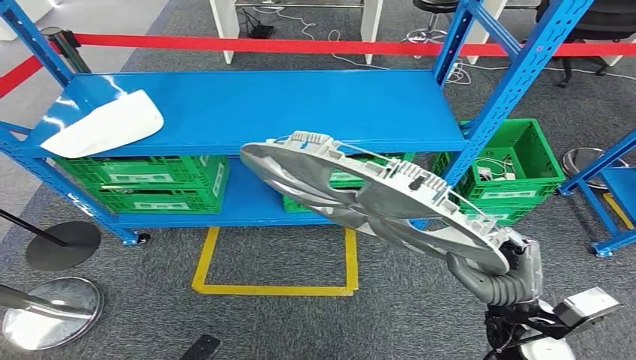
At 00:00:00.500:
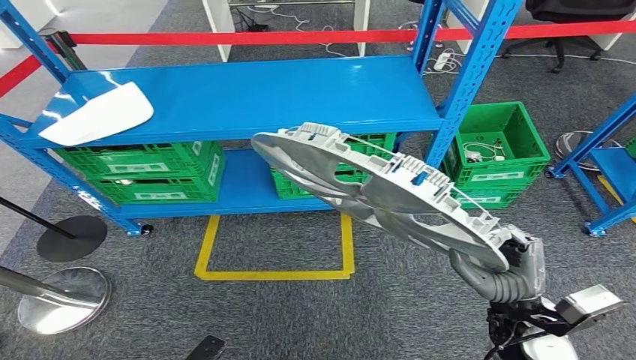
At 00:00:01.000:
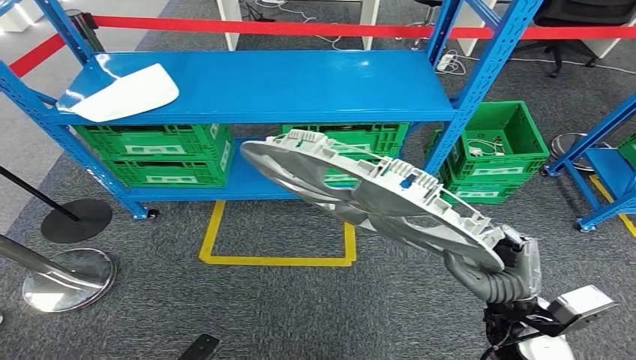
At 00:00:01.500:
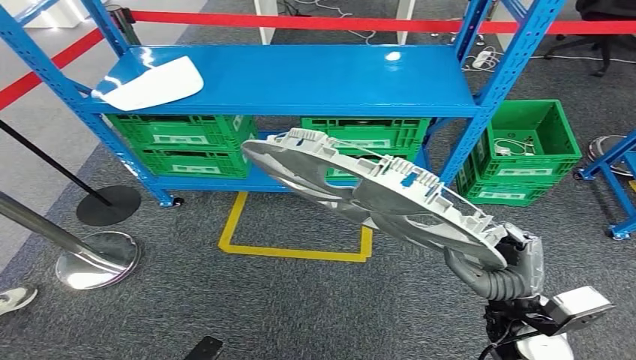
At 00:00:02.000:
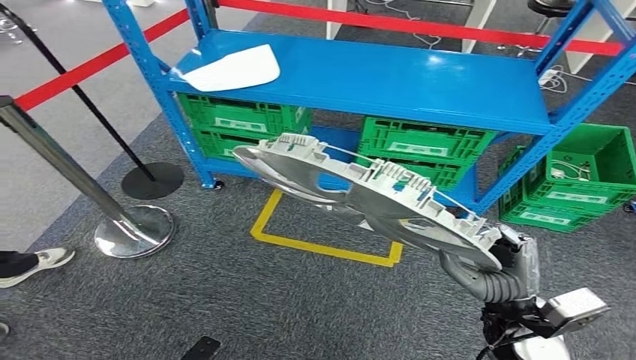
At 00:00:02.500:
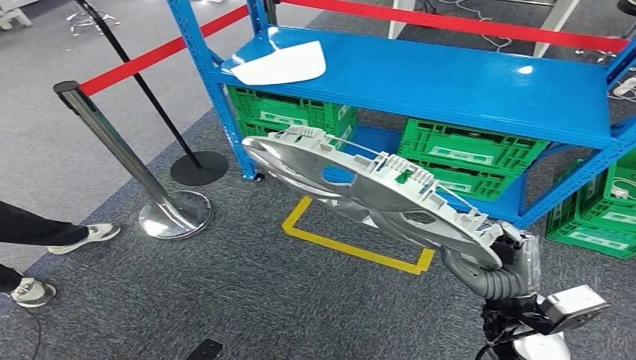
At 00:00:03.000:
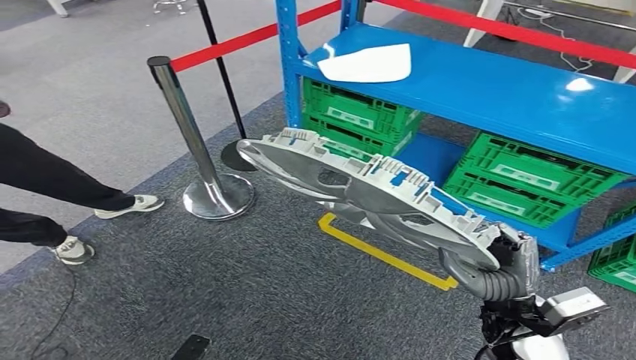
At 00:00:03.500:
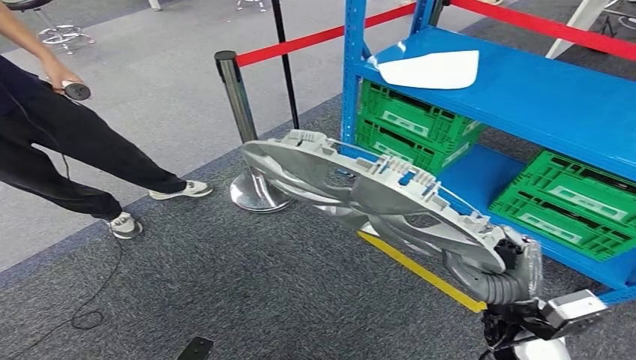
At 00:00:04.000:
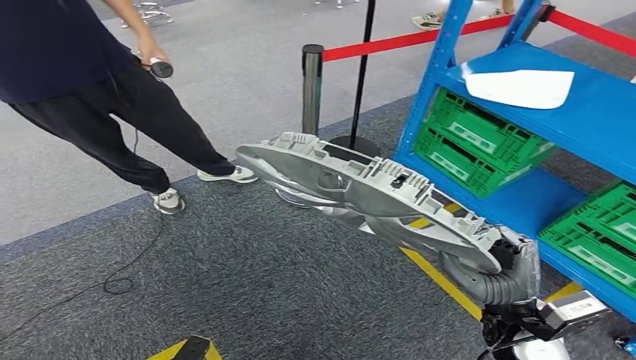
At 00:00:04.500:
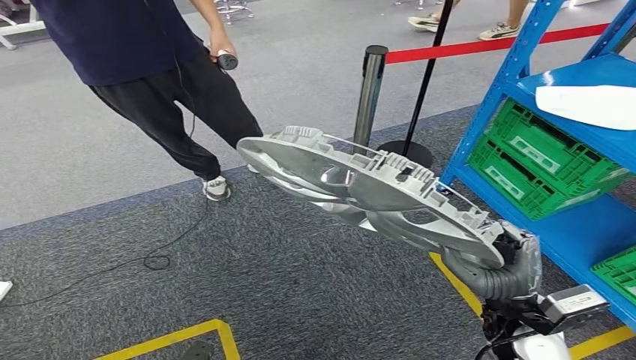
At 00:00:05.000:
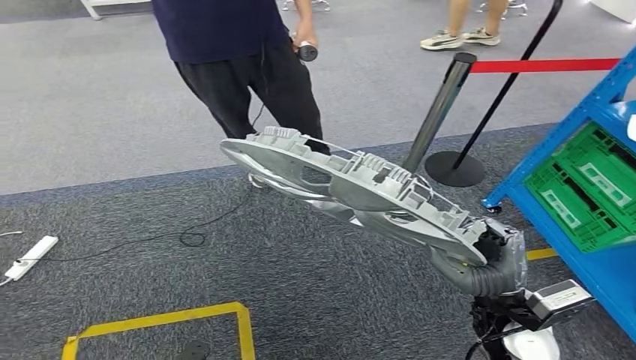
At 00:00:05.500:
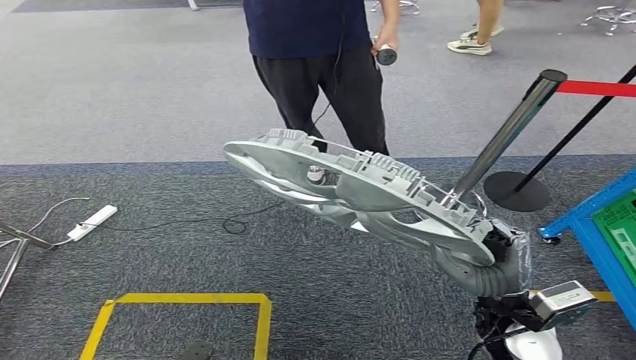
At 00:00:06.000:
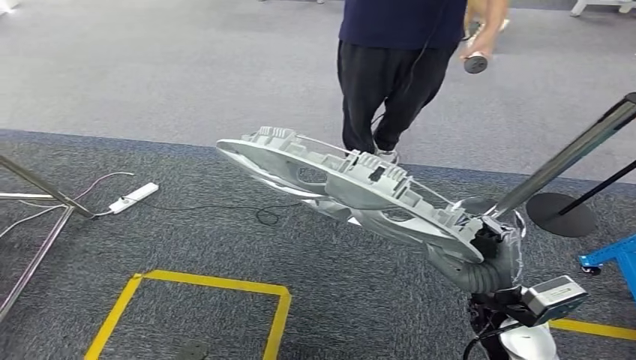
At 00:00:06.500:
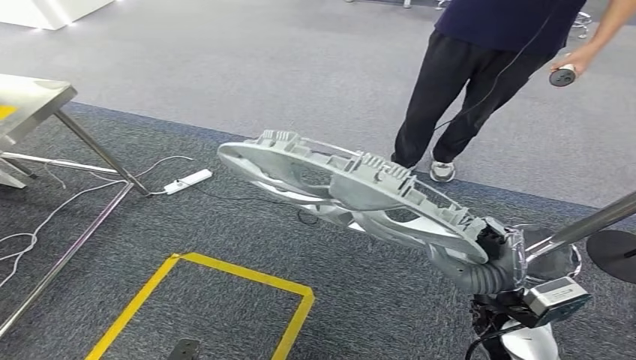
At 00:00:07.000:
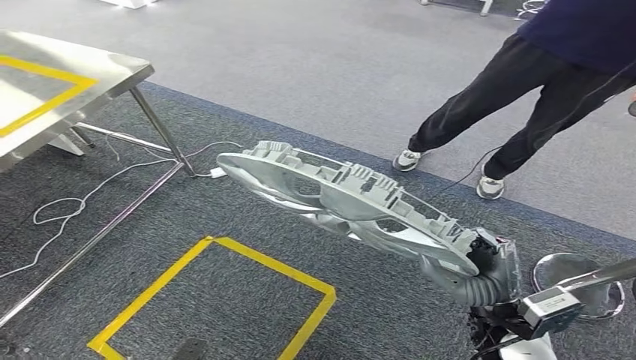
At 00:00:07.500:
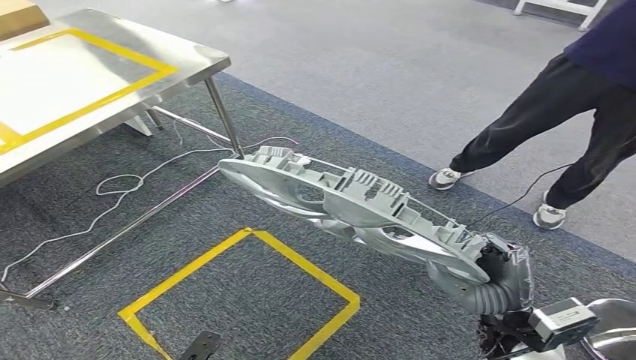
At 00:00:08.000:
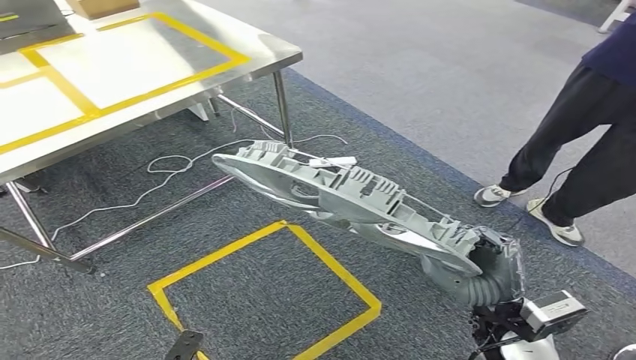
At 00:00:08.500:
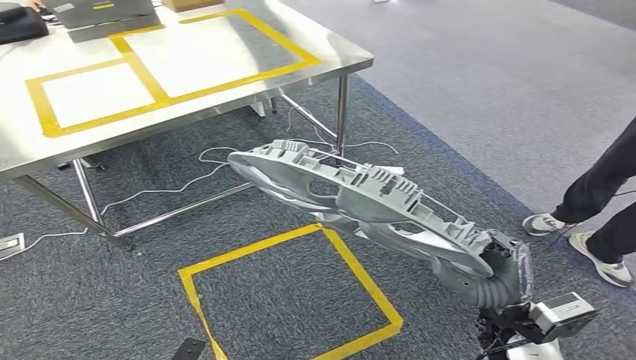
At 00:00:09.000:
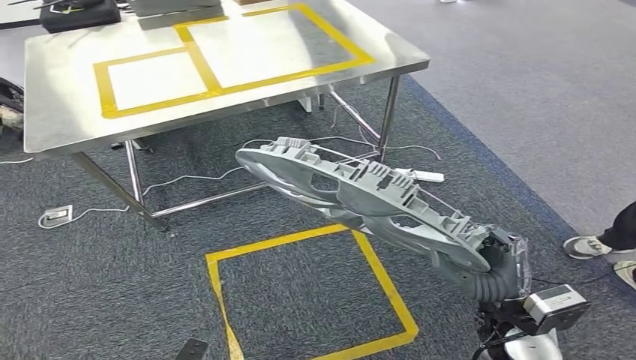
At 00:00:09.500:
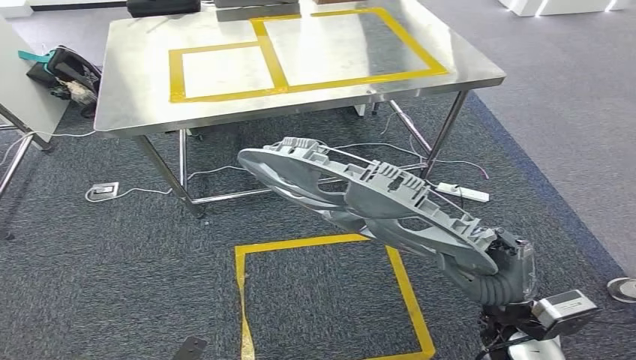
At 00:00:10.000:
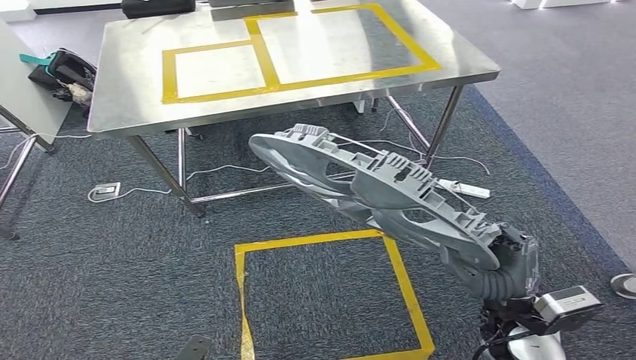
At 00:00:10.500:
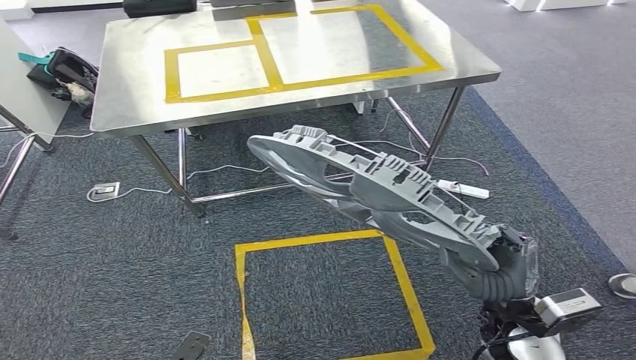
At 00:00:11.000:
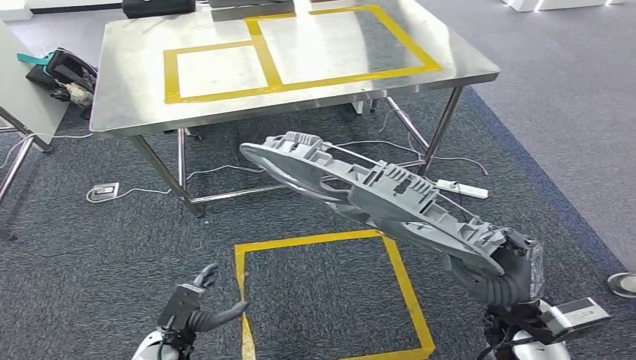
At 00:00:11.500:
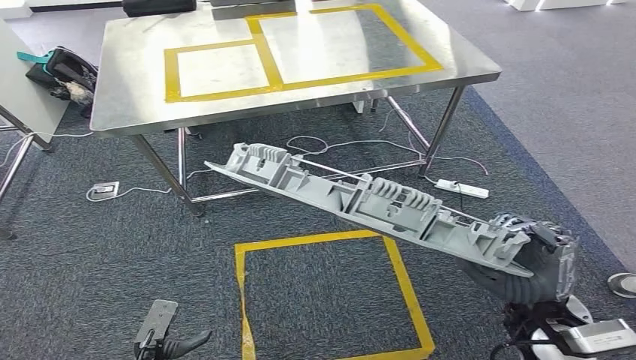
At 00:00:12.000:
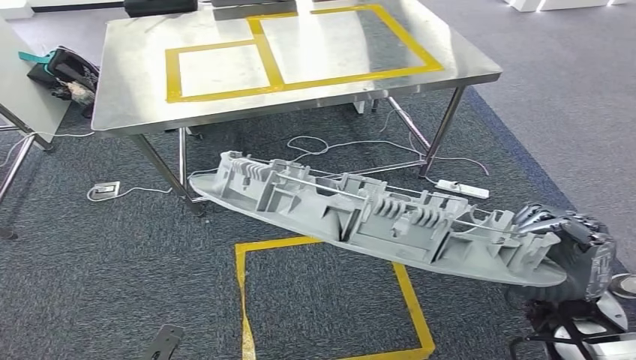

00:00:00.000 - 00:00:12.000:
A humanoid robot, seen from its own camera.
00:00:10.000 - 00:00:12.000: The right hand goes about 10 cm upward; the left hand reaches approximately 10 cm forward, then returns.

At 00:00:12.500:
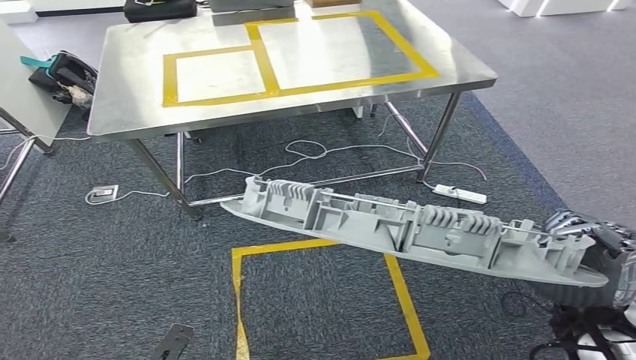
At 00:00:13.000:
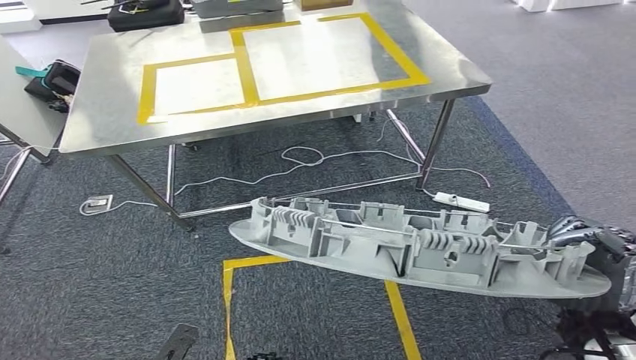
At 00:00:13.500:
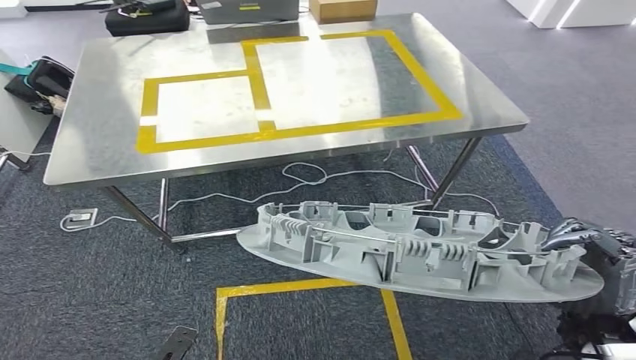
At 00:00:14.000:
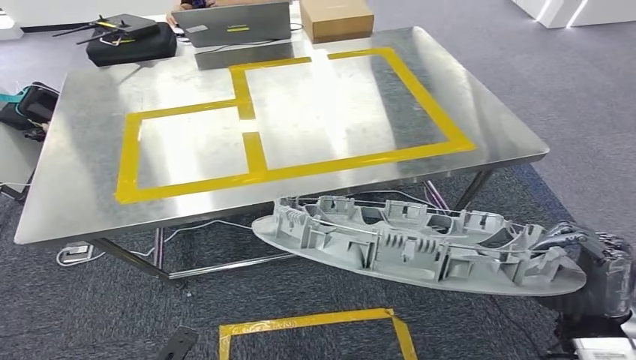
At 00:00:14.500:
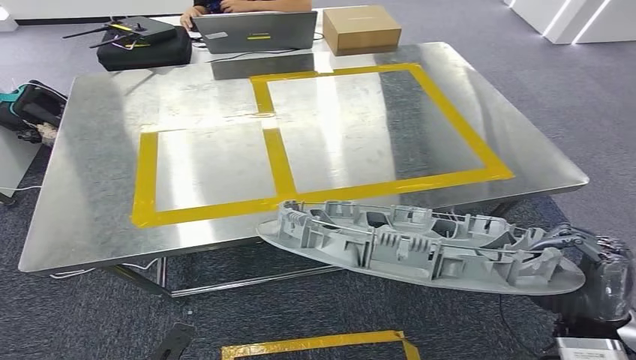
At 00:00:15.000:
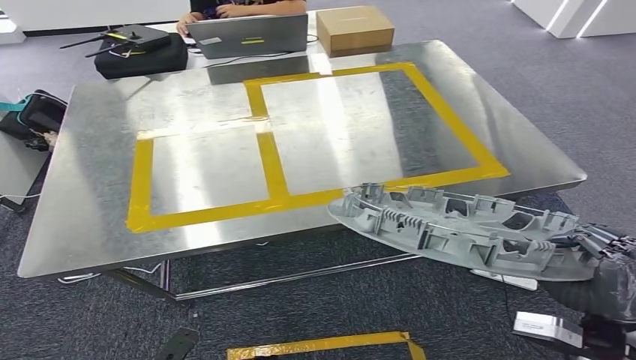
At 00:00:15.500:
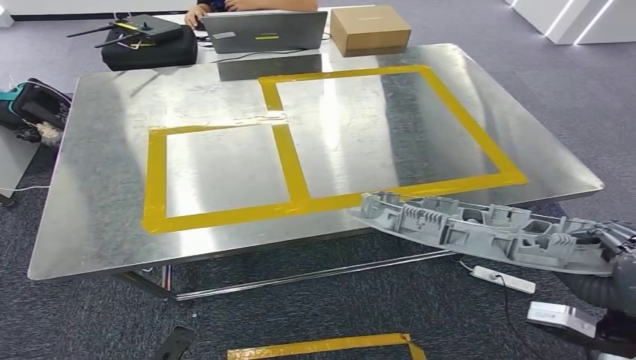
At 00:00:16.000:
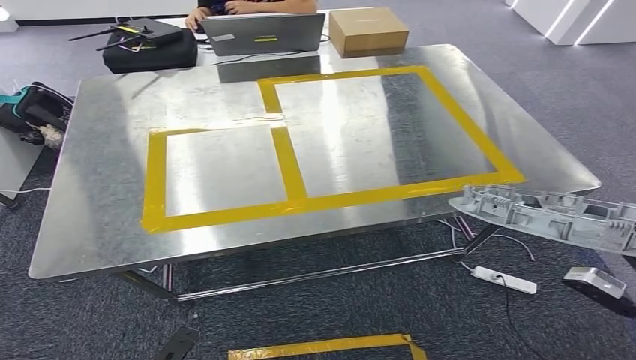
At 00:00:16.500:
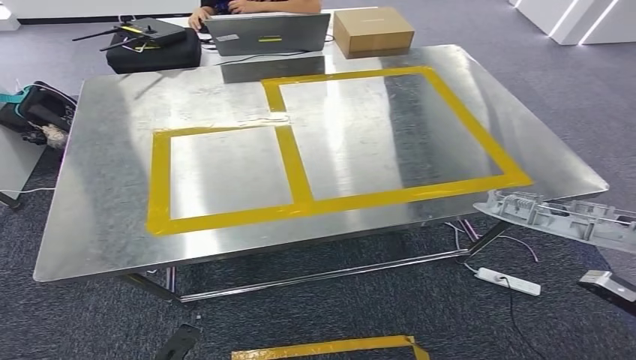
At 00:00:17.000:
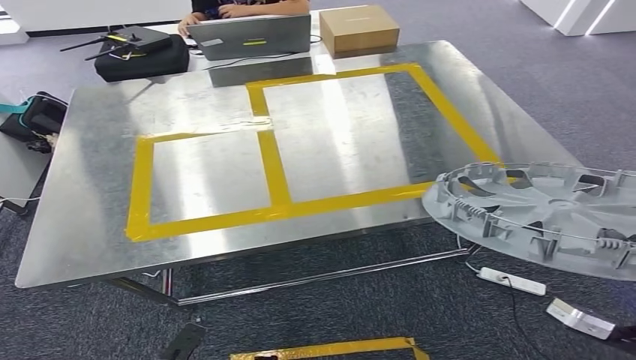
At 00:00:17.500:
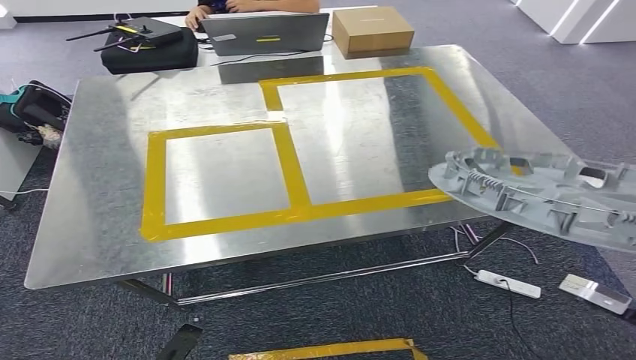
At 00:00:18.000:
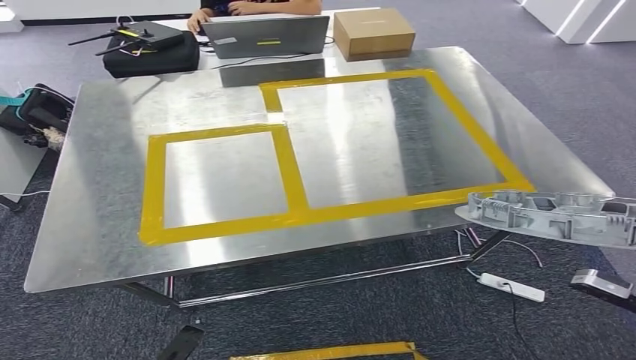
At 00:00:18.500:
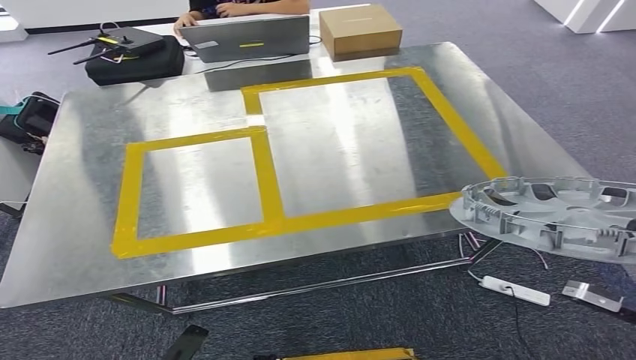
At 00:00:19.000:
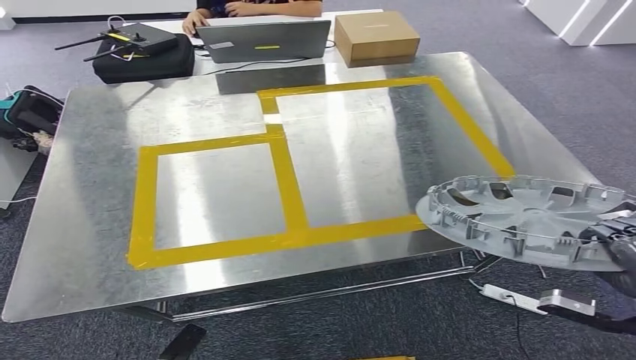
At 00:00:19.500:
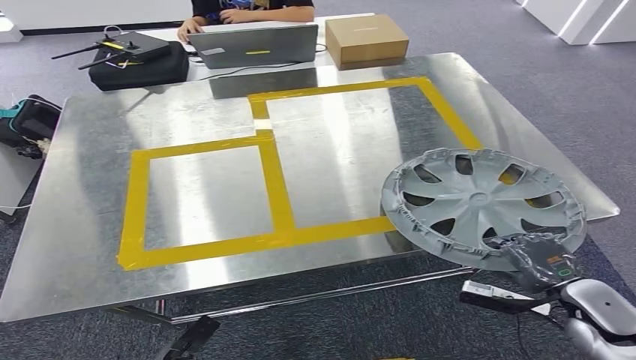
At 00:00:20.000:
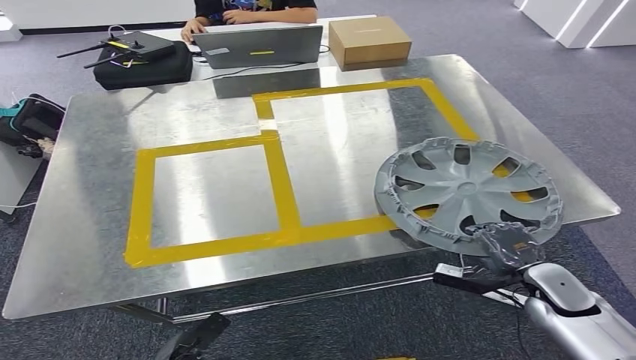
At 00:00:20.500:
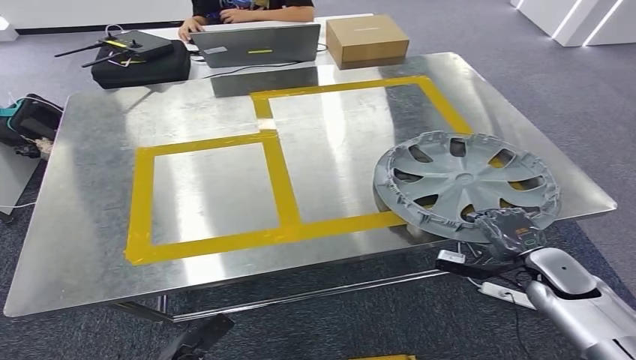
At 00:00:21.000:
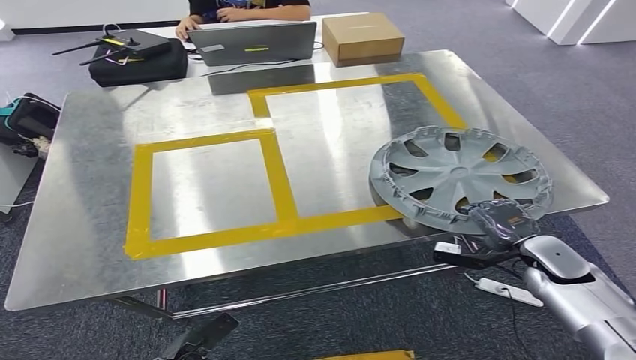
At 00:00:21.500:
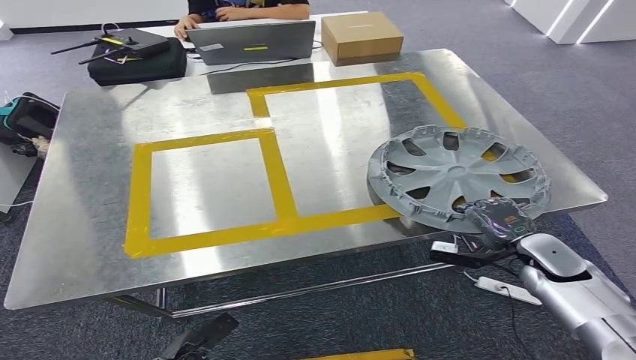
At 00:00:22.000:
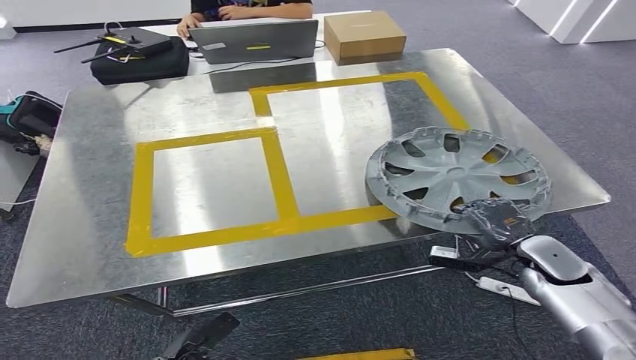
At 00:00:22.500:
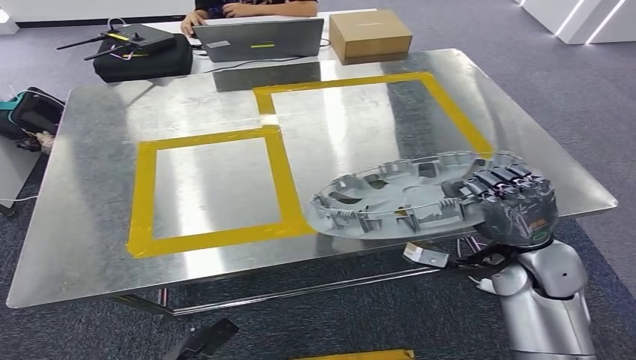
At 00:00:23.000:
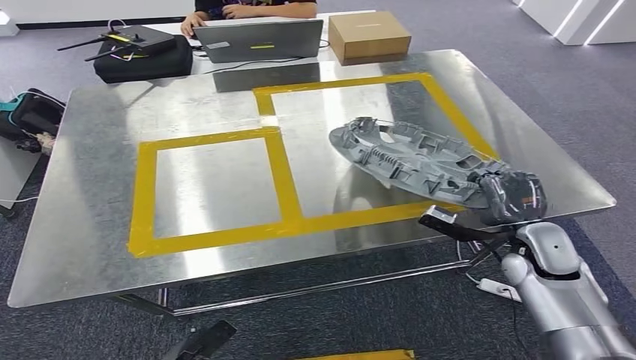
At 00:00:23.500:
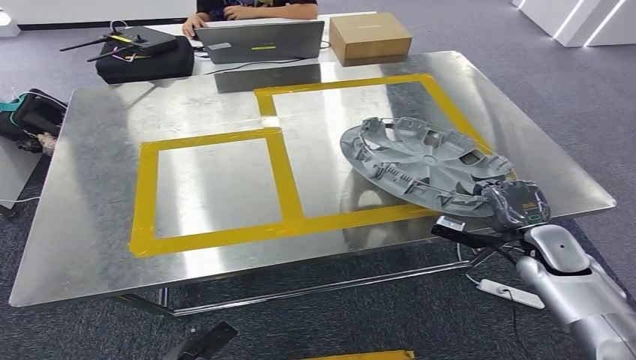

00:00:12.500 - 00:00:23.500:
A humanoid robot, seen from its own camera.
Step, 00:00:12.500 - 00:00:17.500: Move the small parts to the workbench.
